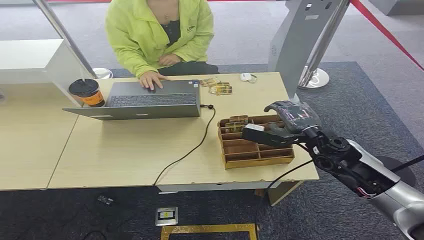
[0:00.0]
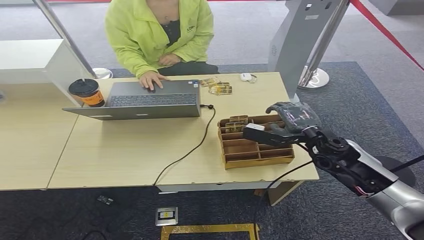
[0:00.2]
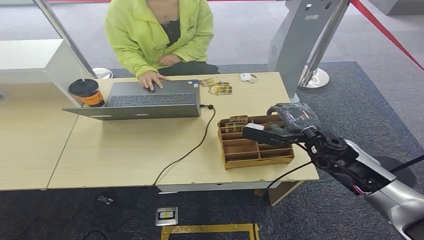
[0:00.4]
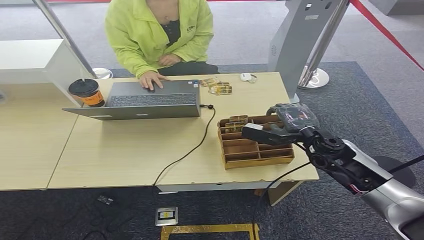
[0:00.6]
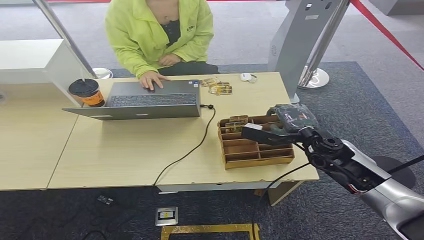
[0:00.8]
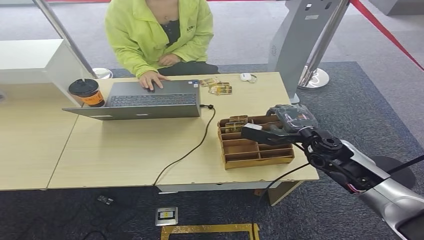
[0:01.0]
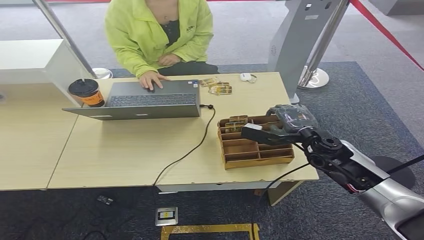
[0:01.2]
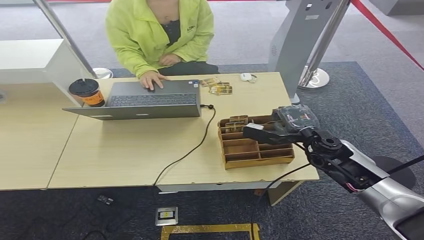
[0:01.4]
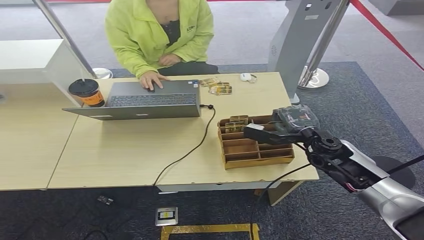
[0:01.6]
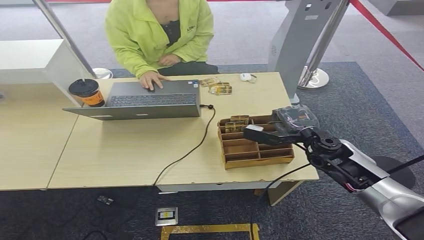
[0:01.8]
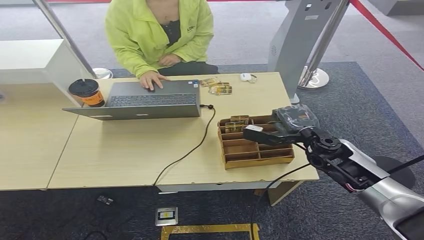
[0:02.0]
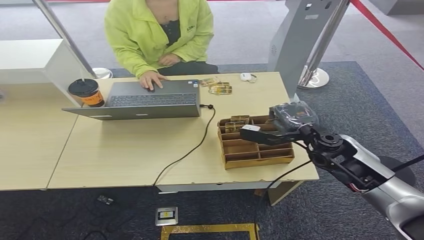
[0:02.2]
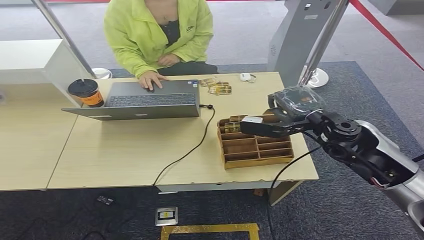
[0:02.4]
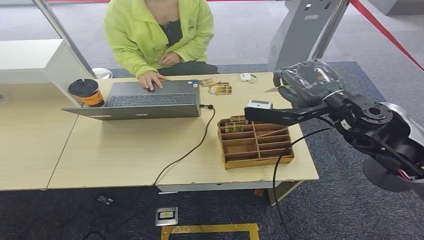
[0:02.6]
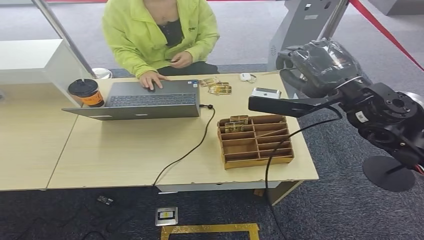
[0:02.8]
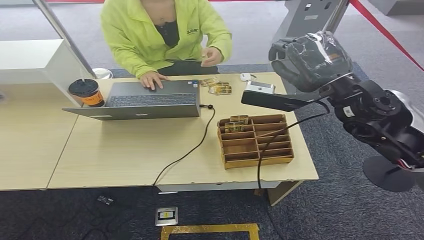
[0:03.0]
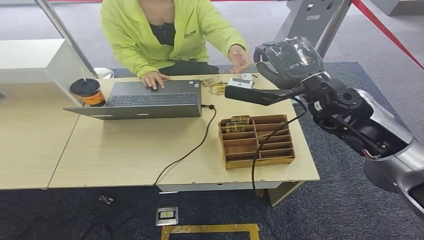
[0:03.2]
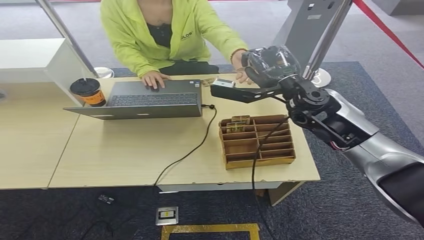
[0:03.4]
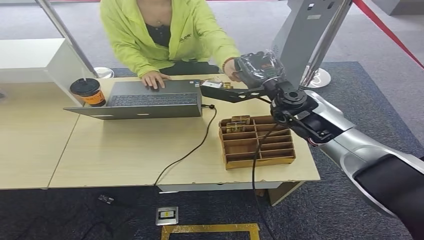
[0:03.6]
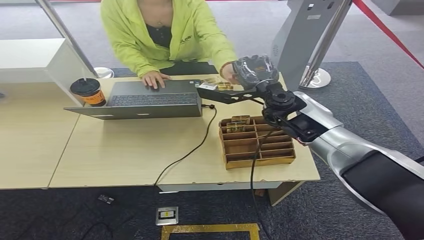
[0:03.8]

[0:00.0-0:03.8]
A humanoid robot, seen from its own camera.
Task of the whole recording: Pick up the card and hand it over to the target person.
Step, 0:00.0 to 0:02.4: Pick up the key card from the card box.
Step, 0:02.6 to 0:03.8: Hand the key card to the target.
0:01.2 to 0:02.6: The right hand shifts some 25 cm upward.

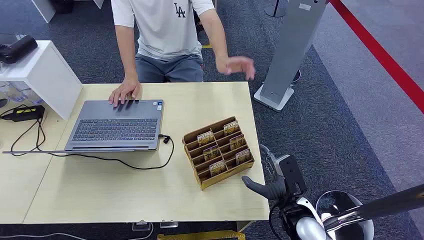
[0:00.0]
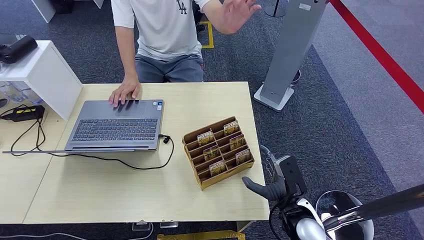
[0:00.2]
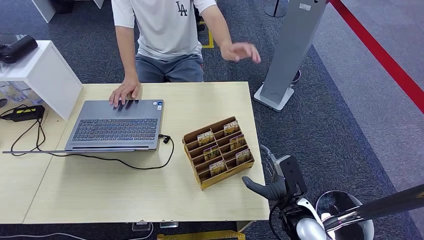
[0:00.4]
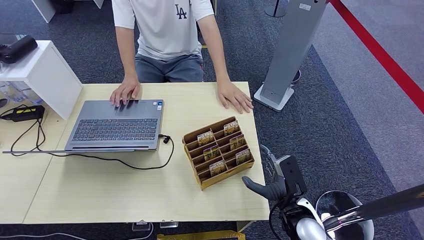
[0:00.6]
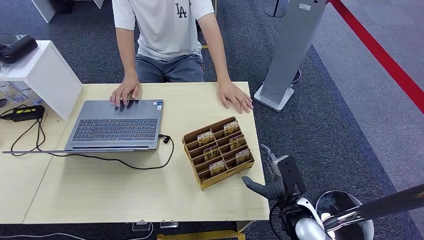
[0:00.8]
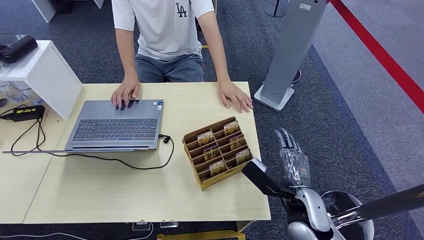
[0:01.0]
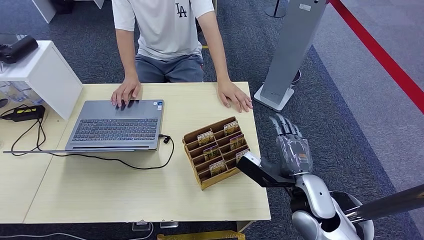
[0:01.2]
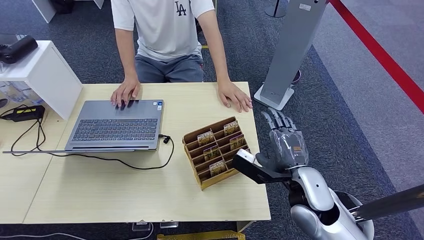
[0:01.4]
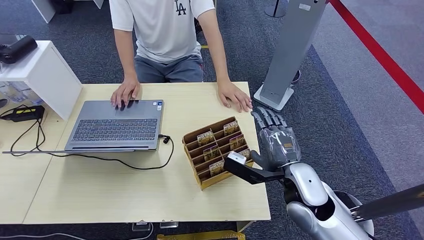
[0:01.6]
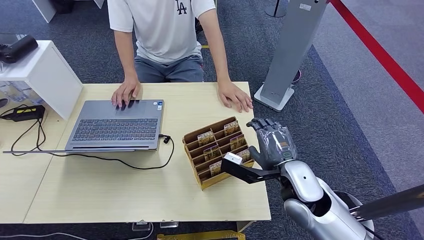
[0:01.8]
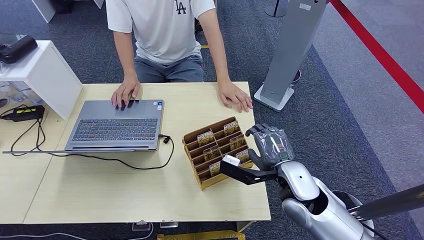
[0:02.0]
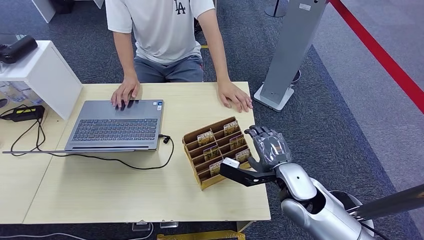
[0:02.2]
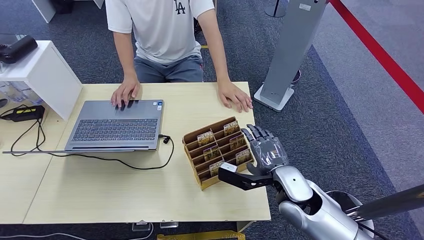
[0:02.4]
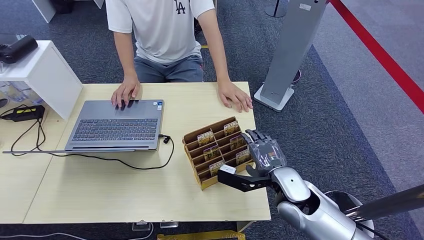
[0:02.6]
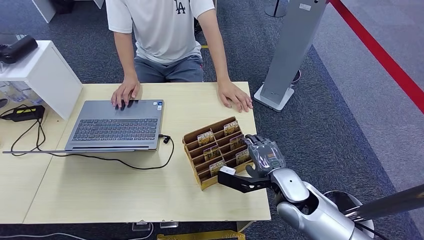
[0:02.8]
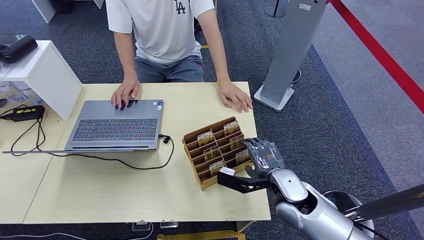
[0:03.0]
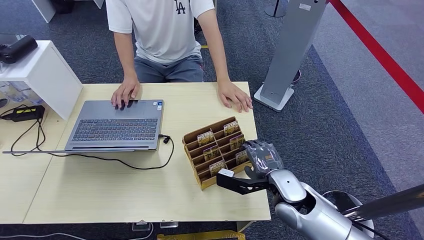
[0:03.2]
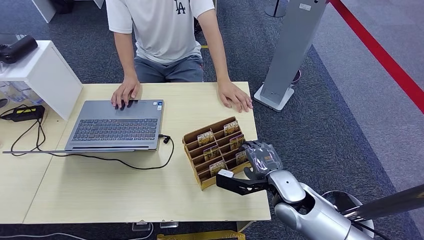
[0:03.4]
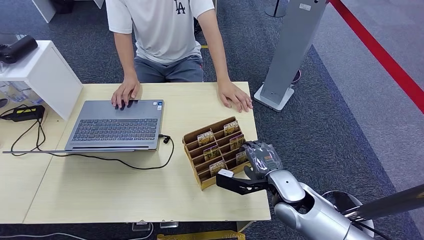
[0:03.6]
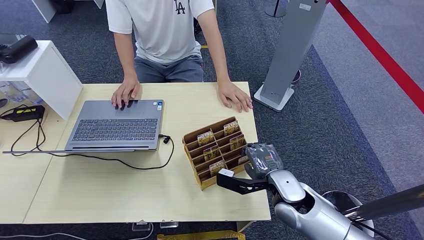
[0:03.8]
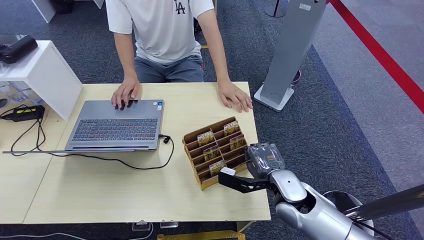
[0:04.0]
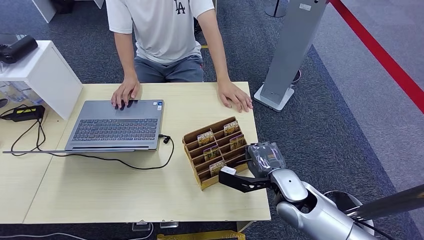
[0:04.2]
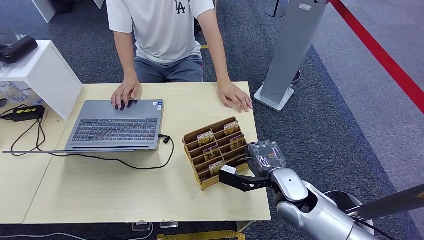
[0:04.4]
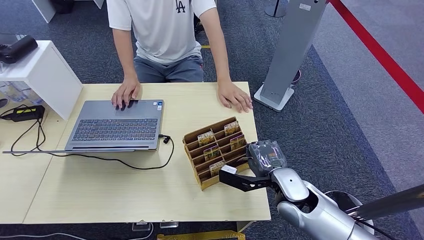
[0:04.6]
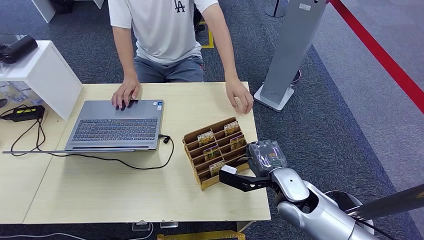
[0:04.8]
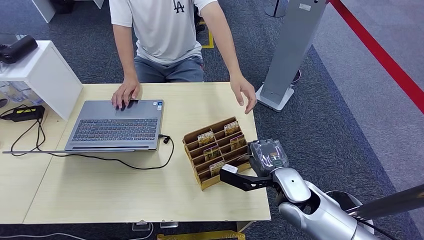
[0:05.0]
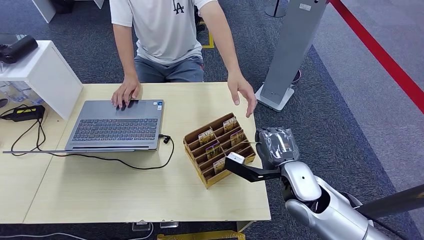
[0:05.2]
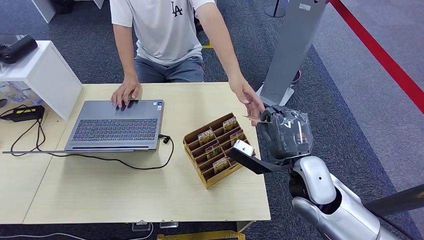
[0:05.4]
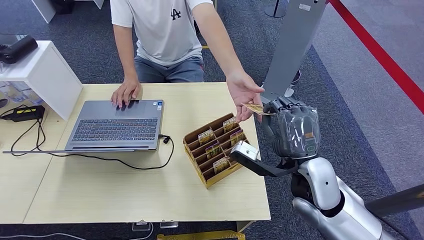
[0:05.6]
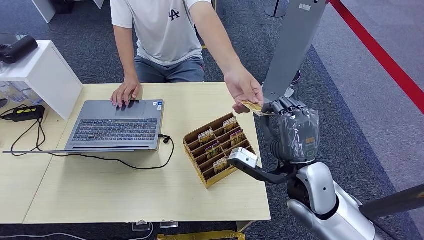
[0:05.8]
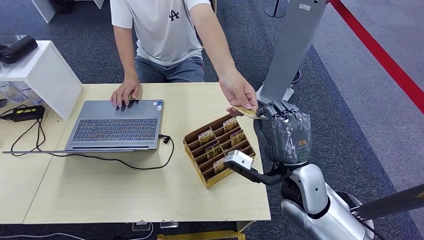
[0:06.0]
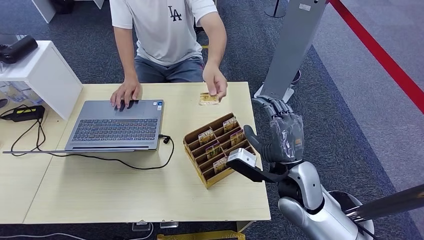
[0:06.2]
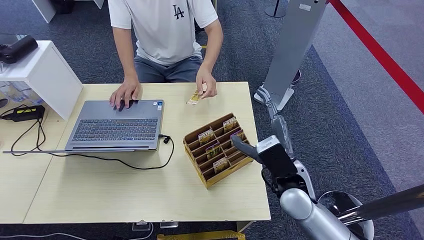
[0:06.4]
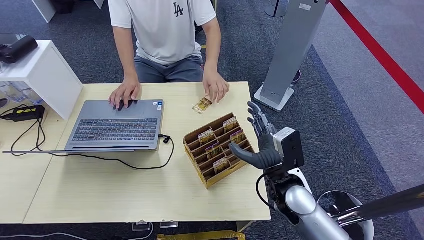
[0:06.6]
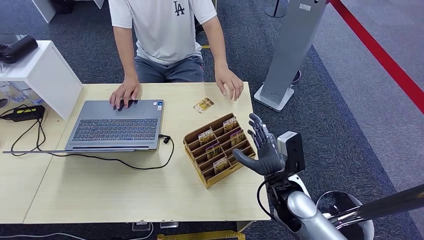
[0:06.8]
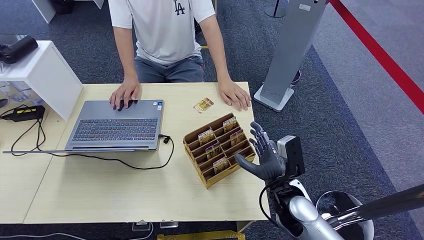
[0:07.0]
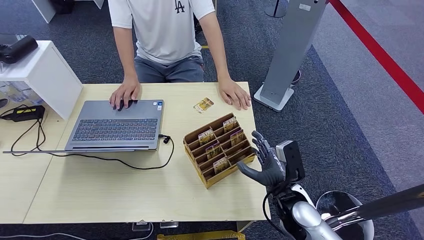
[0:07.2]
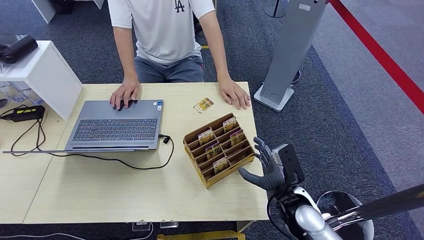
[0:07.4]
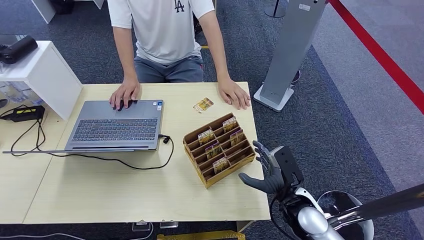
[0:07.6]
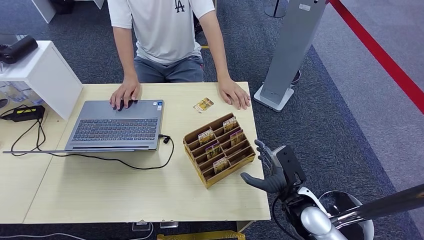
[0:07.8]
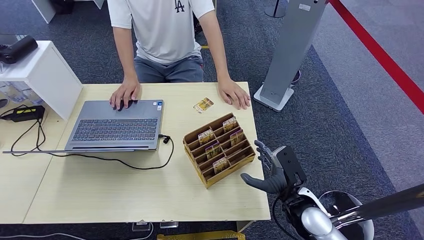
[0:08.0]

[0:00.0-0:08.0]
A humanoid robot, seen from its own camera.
Task of the whole recording: Pick up the card and hand it over to the target person.
Step, 0:00.0 to 0:05.0: Pick up the key card from the card box.
Step, 0:05.2 to 0:08.0: Hand the key card to the target.
0:01.6 to 0:03.2: The right hand moves about 5 cm.
0:03.2 to 0:04.8: The hands move only a little.
0:04.8 to 0:06.4: The right hand reaches some 10 cm upward, then returns.
0:06.4 to 0:08.0: The right hand ends up some 5 cm from where it was.
